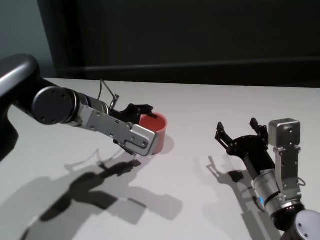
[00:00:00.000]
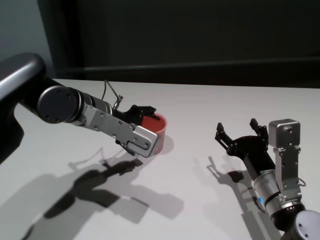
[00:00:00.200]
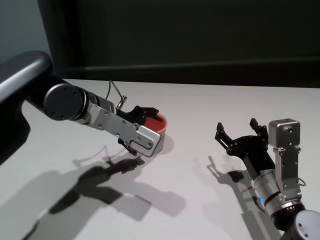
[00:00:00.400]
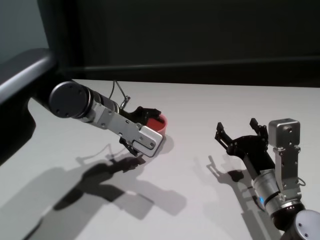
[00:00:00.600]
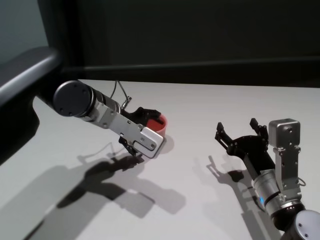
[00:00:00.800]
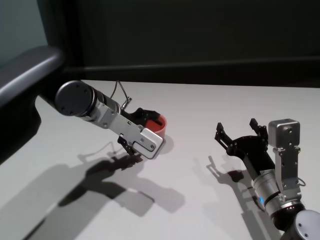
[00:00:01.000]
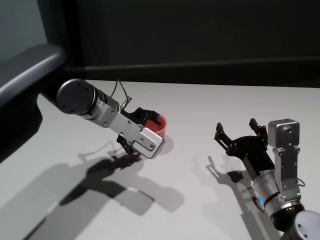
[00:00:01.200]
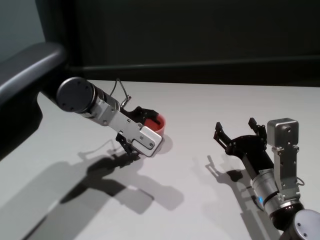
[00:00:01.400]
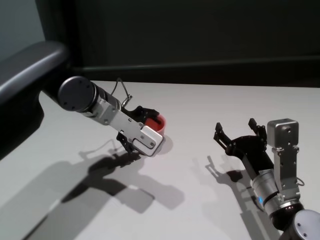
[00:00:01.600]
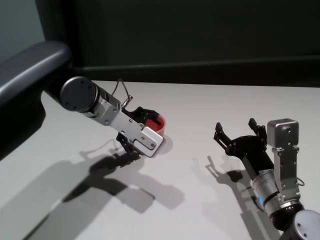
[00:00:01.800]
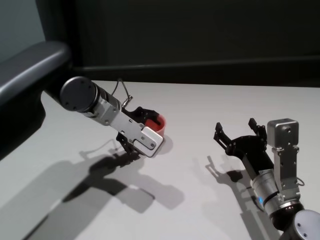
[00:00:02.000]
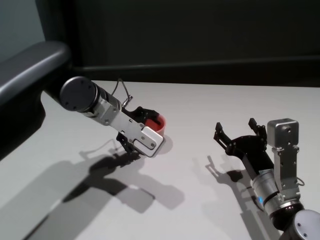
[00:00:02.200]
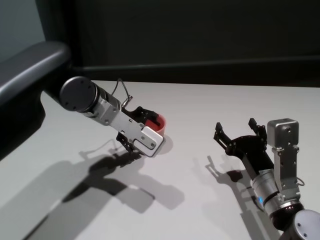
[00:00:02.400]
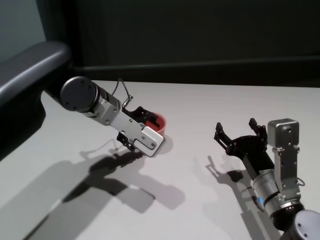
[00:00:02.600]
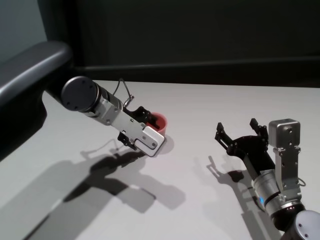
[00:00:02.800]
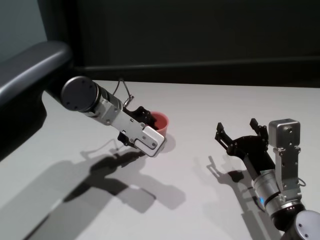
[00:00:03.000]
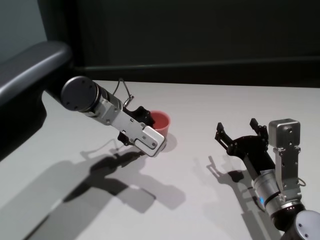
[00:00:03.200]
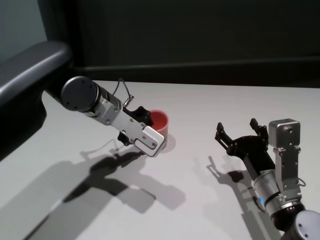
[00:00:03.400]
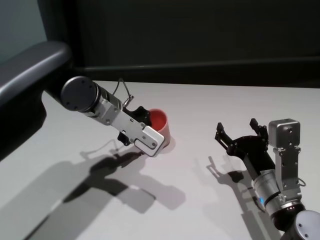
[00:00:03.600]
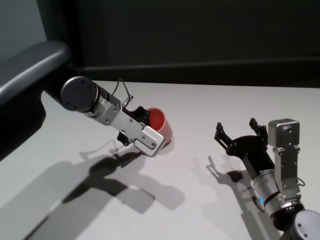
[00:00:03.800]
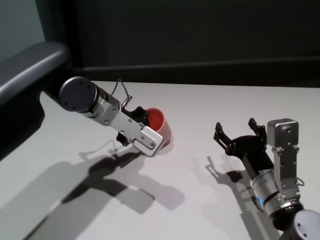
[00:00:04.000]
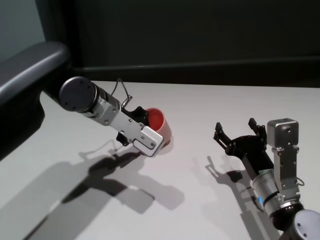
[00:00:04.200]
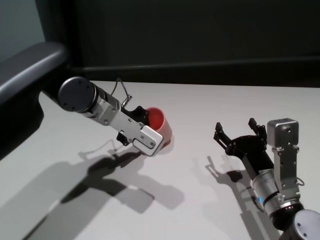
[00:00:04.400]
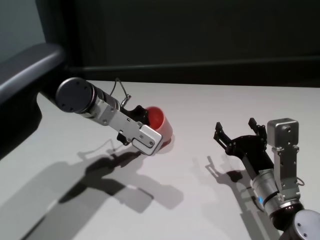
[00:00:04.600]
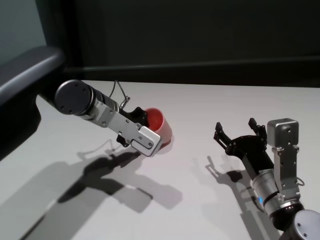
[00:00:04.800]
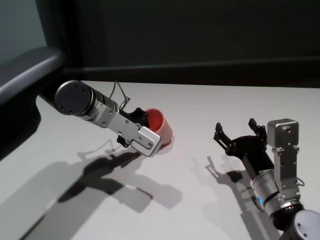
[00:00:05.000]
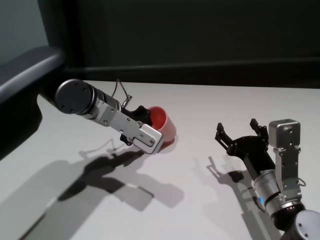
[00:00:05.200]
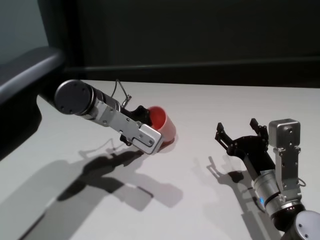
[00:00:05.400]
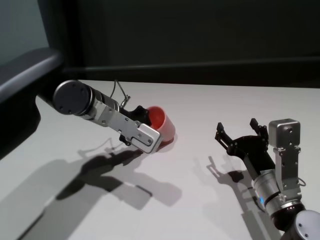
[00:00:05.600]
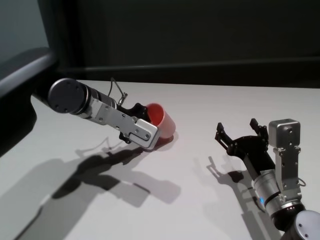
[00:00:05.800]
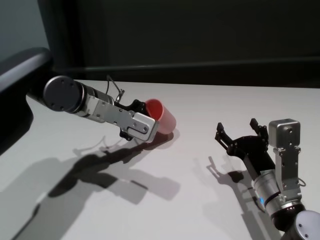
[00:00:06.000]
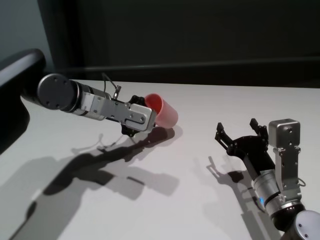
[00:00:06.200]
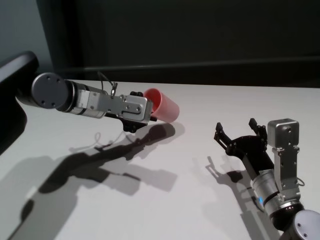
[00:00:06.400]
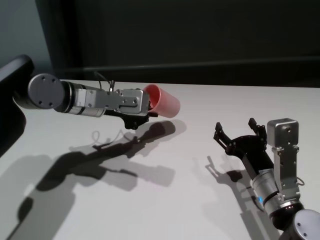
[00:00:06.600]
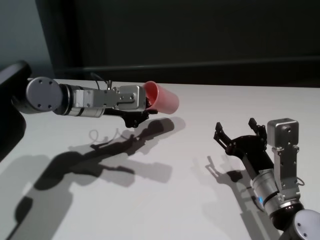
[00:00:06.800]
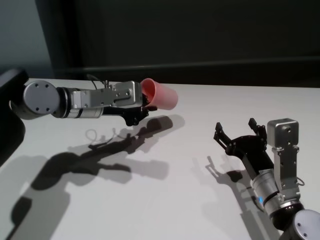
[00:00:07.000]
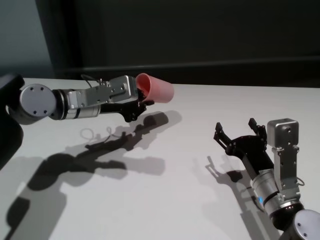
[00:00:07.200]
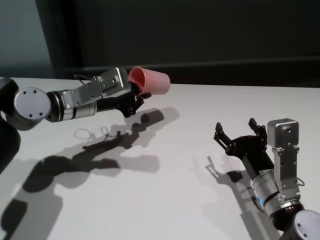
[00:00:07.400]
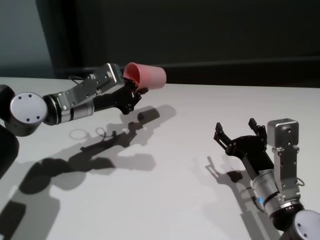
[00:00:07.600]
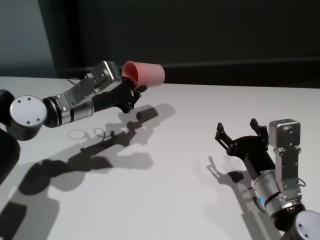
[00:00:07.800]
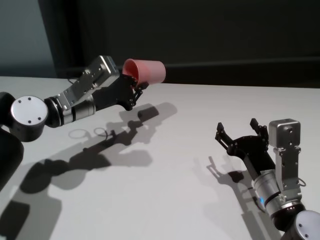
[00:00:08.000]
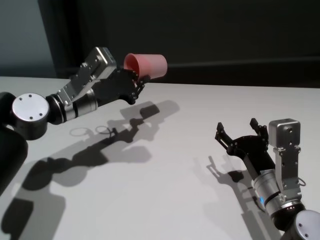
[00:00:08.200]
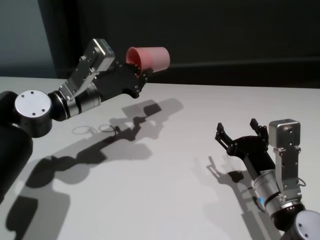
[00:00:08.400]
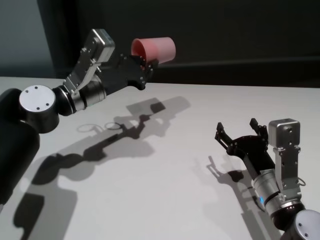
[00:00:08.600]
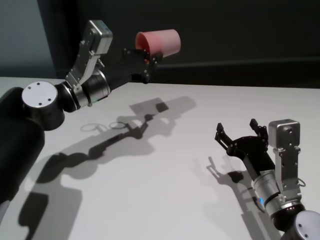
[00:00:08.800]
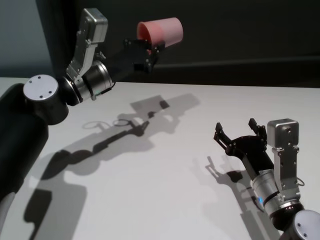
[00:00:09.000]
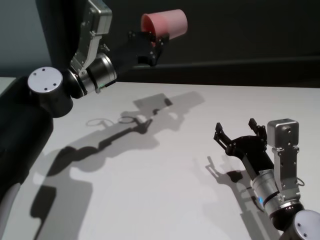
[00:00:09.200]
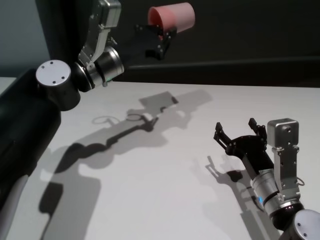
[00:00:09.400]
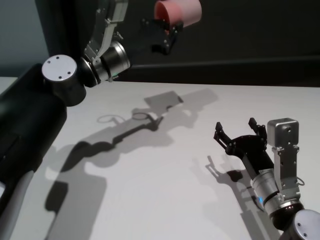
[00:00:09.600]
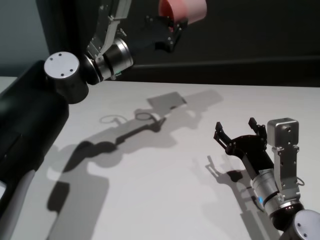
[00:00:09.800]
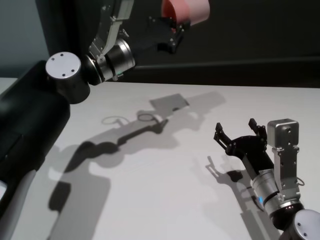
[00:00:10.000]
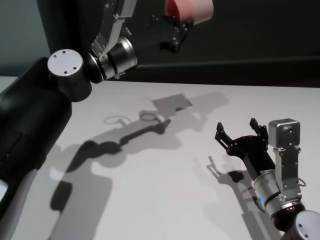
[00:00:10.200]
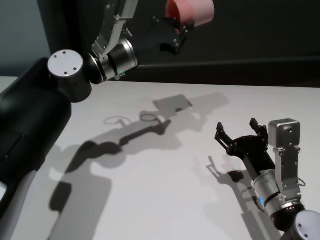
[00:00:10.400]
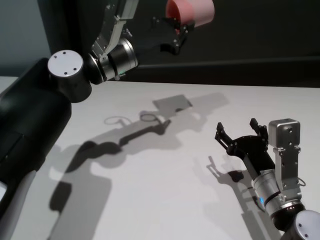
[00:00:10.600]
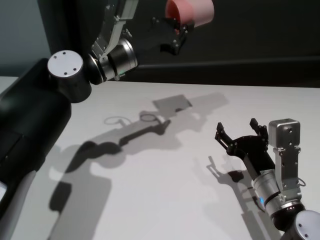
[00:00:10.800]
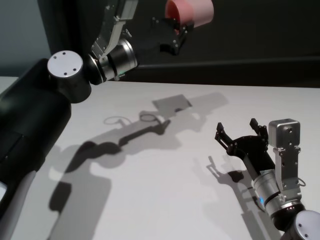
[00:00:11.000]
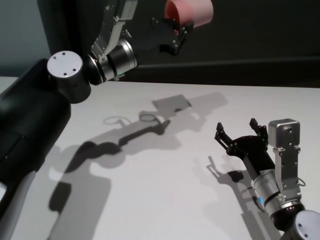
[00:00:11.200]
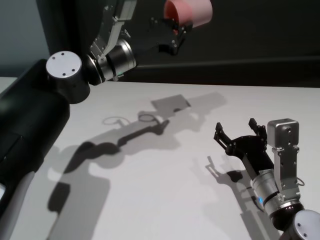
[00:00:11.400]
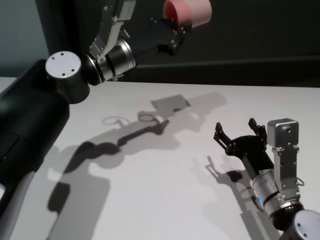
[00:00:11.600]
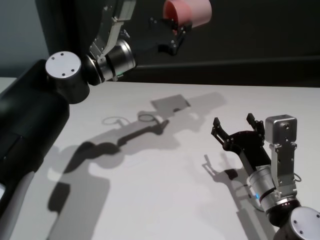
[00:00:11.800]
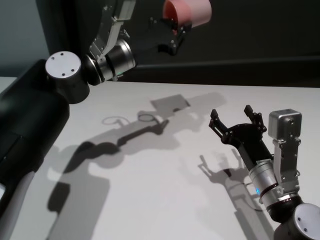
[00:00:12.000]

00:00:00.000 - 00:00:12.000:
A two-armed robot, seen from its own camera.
Task of the whole recording: On the white table pick up the cup with one hand and transfer it to the other hand before turning it over.
Step, 00:00:00.000 - 00:00:03.200: Grasp the cup with left gripper.

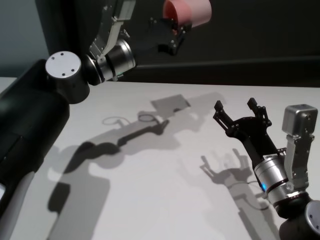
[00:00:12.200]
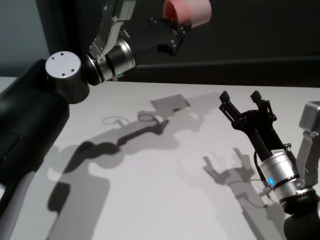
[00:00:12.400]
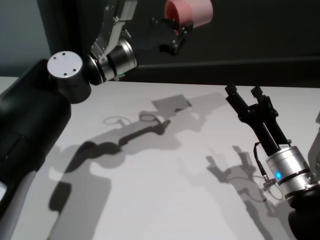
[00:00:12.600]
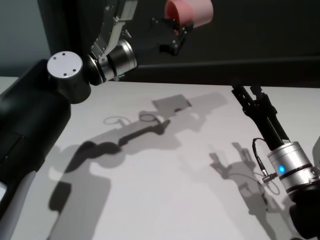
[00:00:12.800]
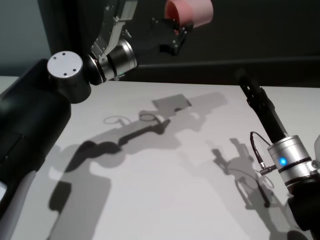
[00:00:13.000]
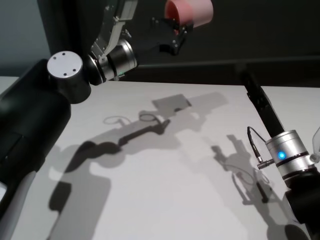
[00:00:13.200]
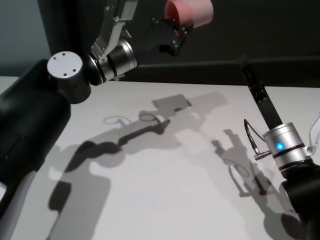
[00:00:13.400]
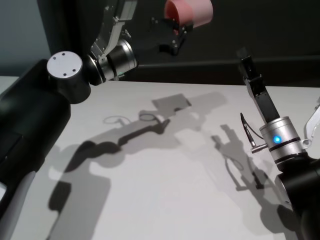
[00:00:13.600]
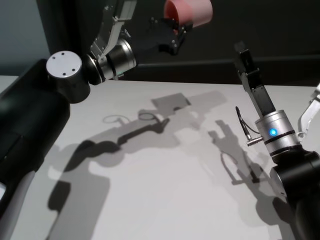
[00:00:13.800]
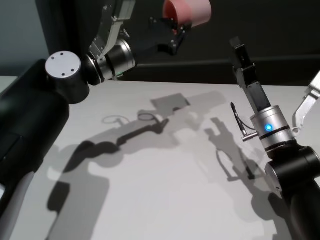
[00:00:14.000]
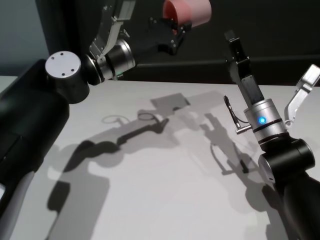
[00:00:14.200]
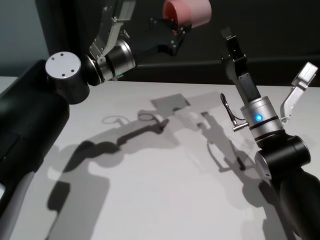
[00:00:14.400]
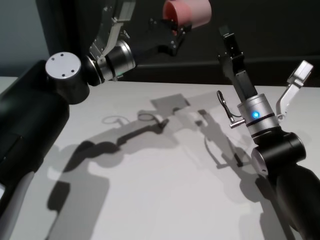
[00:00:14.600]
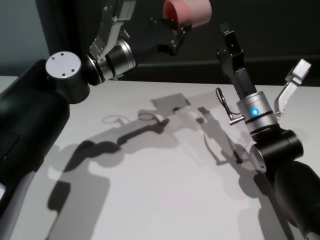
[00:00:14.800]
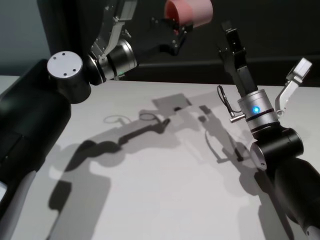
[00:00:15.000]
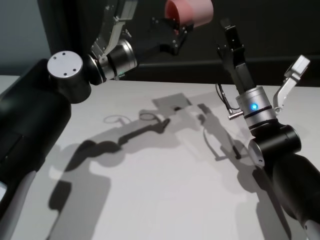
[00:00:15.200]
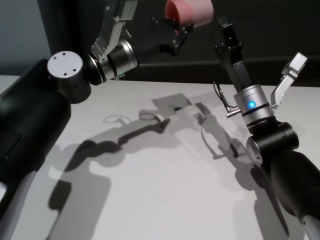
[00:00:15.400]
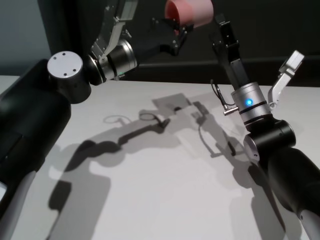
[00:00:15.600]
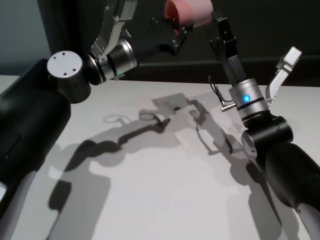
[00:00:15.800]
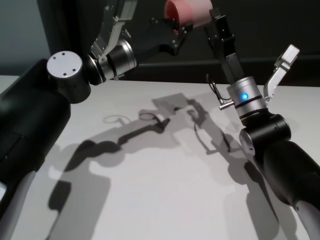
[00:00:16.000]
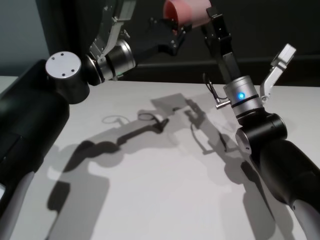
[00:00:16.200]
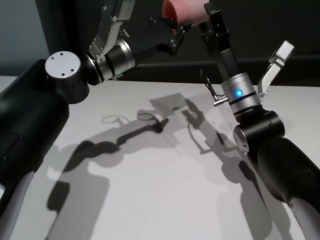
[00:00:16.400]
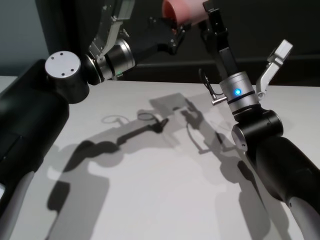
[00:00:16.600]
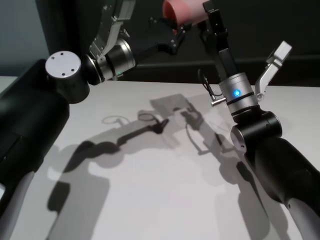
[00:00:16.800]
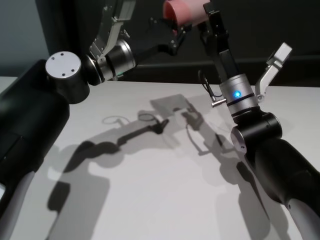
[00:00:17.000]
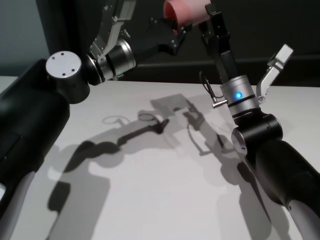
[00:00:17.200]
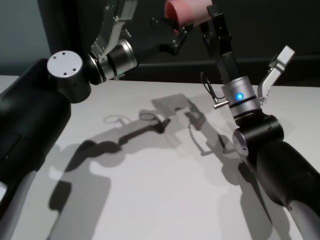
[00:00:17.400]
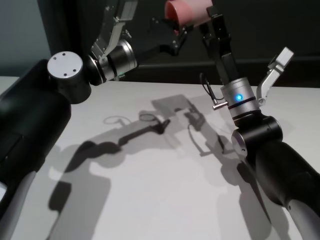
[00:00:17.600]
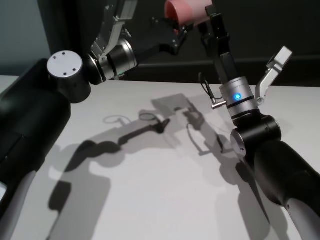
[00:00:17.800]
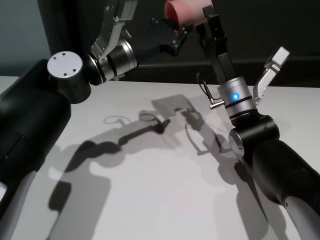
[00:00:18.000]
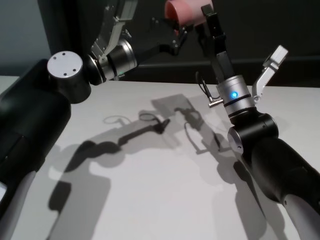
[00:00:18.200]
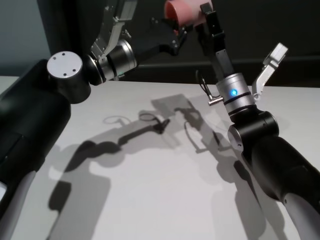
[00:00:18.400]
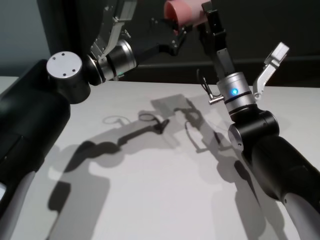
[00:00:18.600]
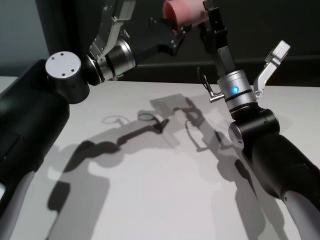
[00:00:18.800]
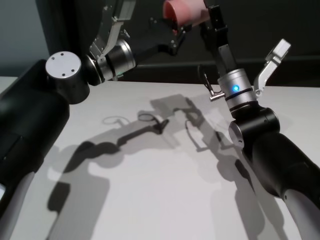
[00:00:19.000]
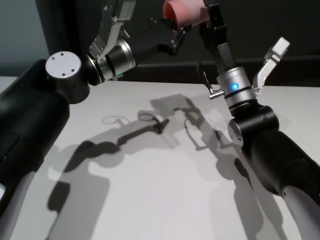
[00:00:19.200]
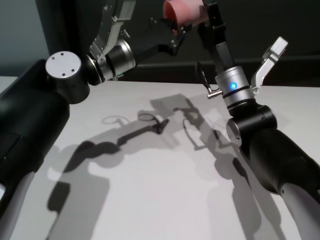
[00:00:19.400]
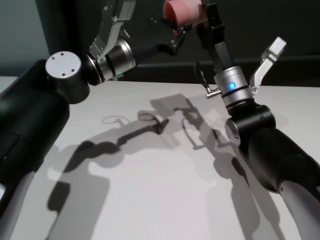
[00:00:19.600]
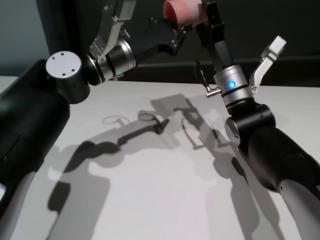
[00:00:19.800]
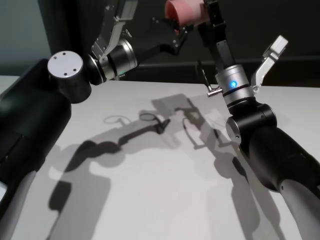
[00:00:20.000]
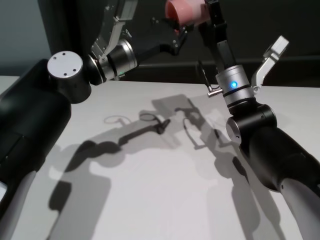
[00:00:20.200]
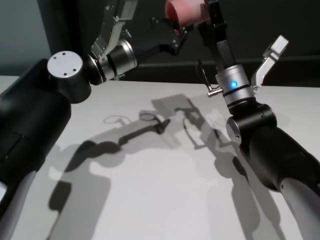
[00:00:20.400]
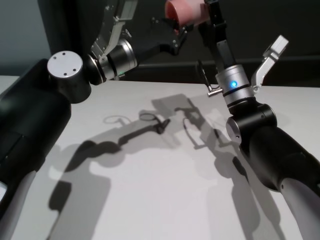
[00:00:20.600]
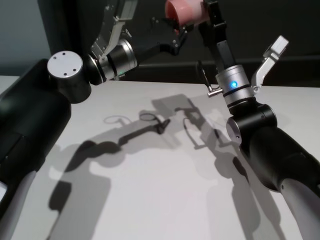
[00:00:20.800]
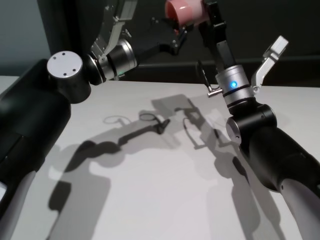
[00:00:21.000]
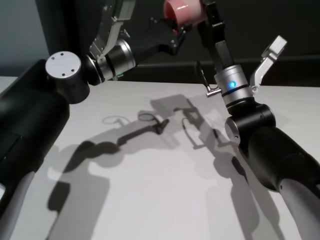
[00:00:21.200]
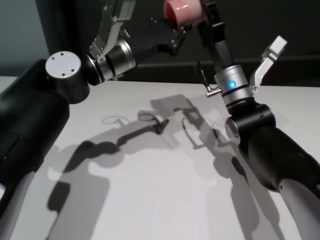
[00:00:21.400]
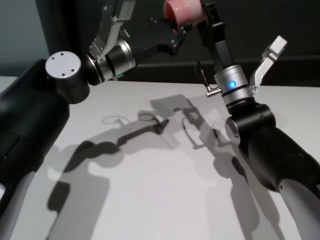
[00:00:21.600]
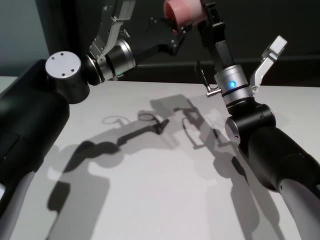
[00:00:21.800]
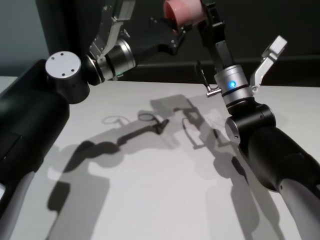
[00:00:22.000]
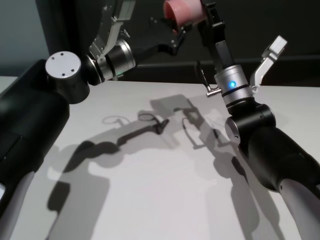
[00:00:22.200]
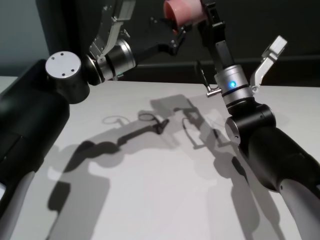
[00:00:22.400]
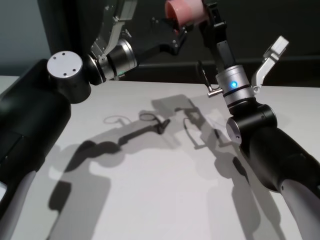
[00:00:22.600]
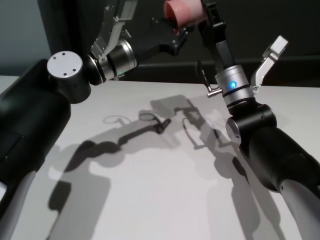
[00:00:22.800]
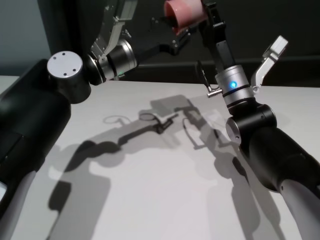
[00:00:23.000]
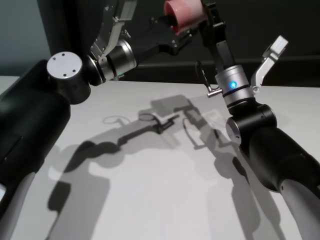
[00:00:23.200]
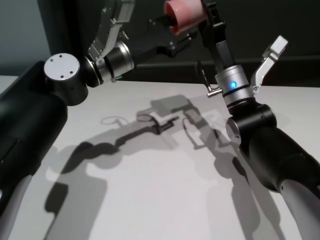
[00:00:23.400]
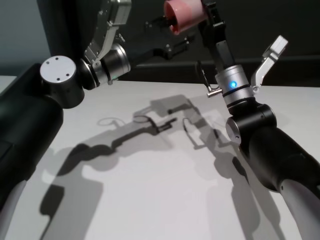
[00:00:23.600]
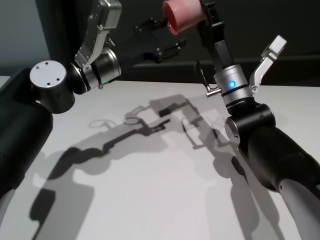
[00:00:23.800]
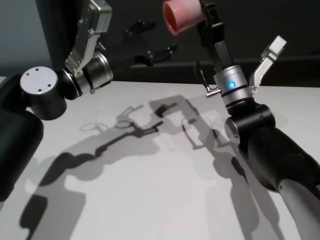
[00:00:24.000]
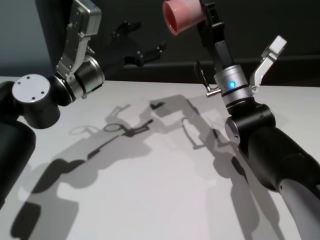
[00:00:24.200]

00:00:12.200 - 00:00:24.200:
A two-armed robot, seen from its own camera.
Task of the whole recording: On the white table pick up the cup with one hand and transfer it to the other hand before turning it over.
Step, 00:00:12.200 - 00:00:24.000: Pass the cup to the right gripper.
